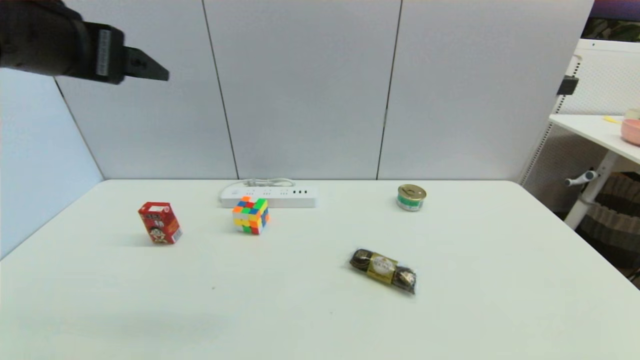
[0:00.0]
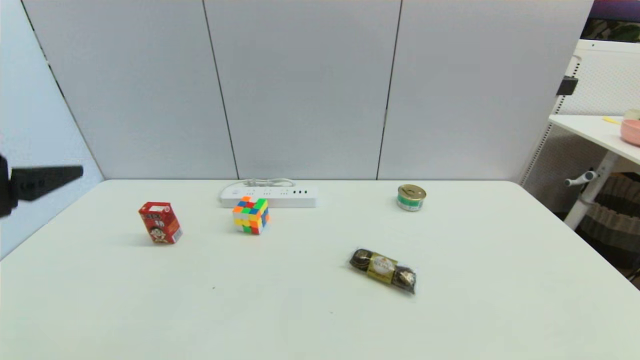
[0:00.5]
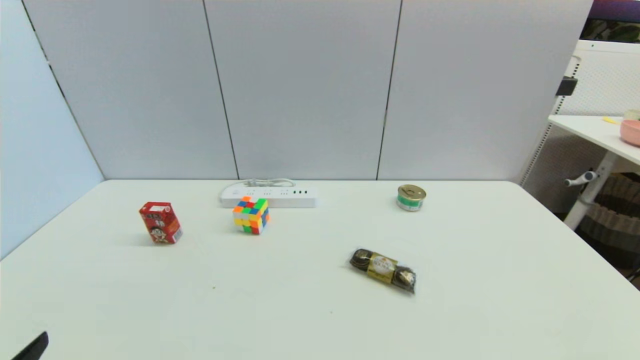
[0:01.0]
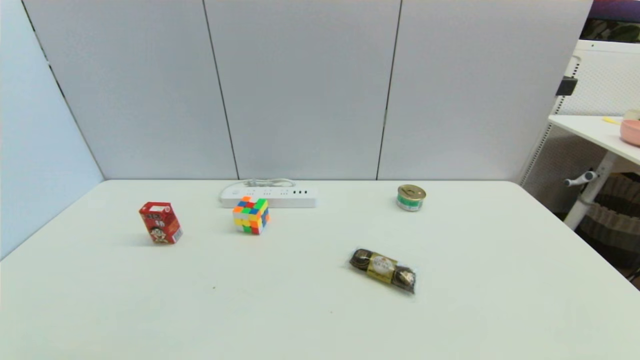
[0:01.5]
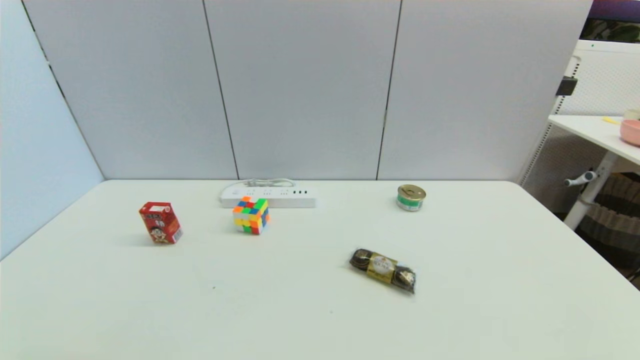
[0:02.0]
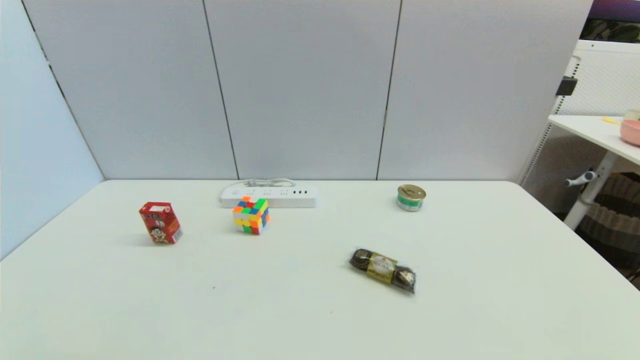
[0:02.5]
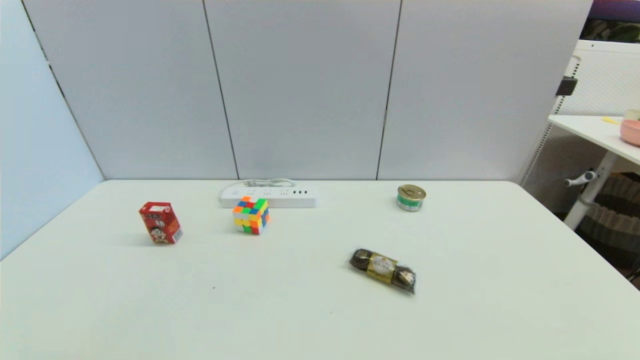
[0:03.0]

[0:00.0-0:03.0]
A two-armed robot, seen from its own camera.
0:00.0 to 0:01.5: The left gripper is displaced downward and backward by roughly 40 cm.
